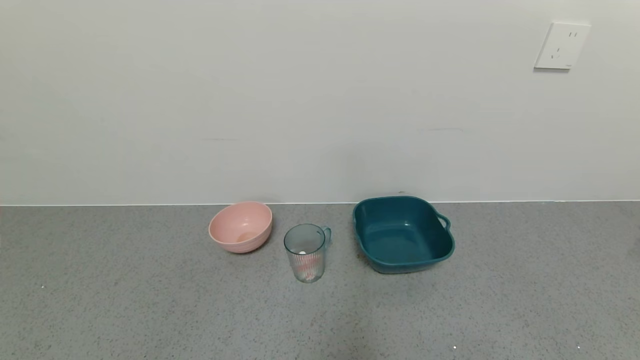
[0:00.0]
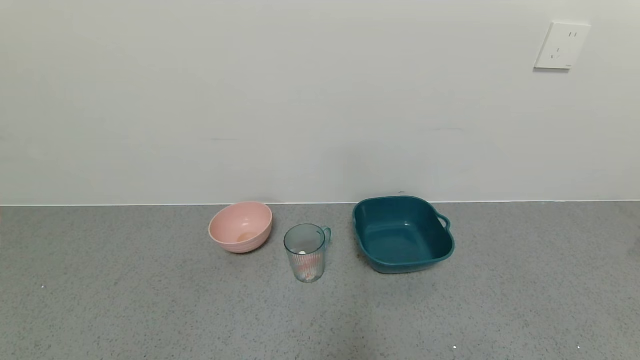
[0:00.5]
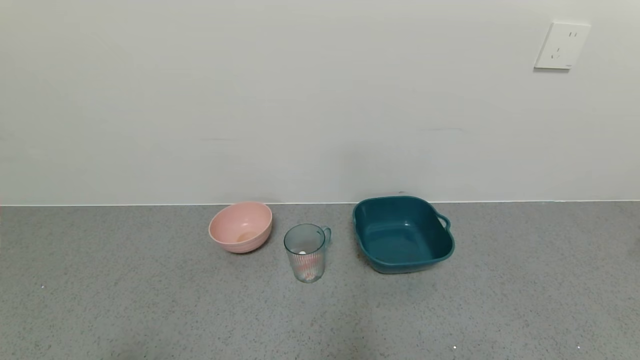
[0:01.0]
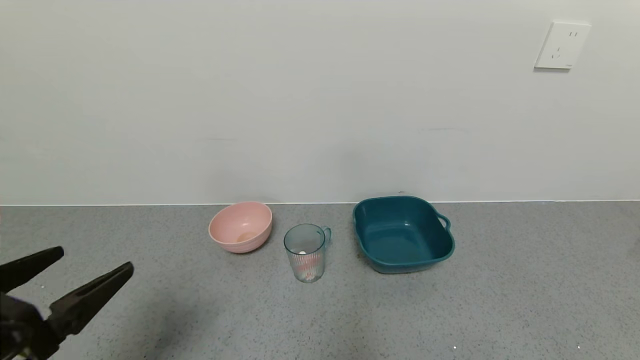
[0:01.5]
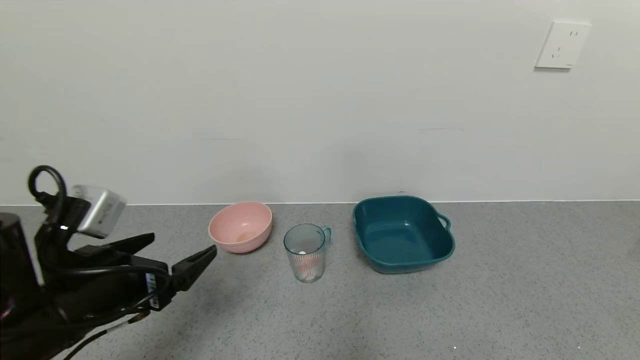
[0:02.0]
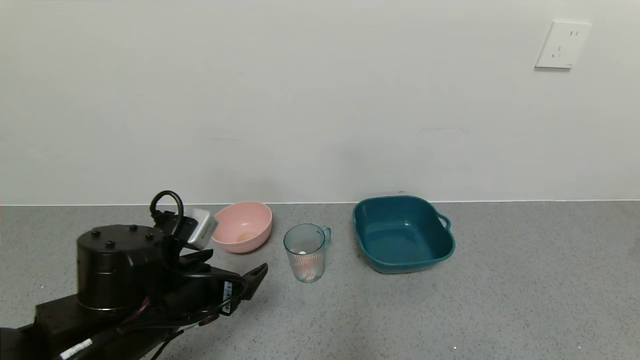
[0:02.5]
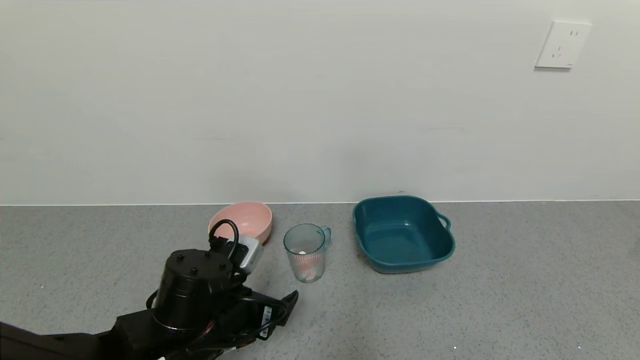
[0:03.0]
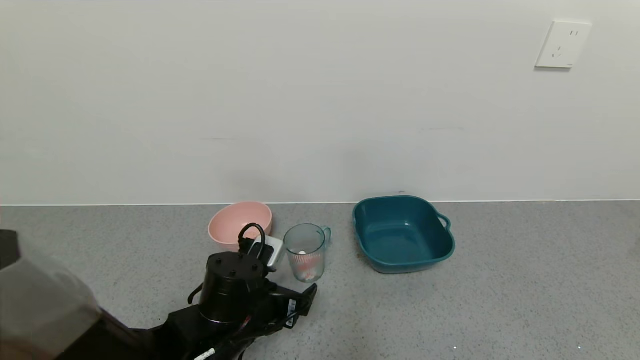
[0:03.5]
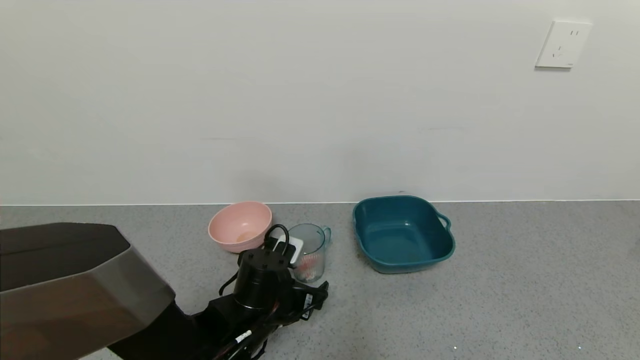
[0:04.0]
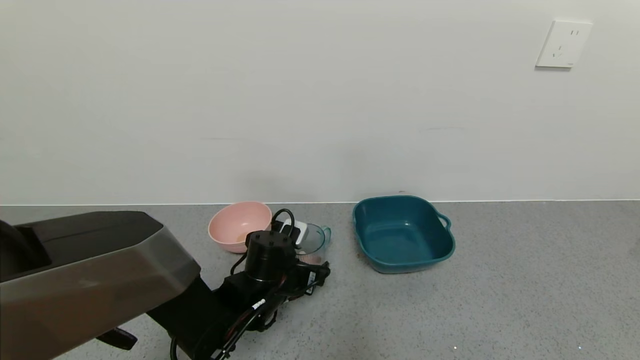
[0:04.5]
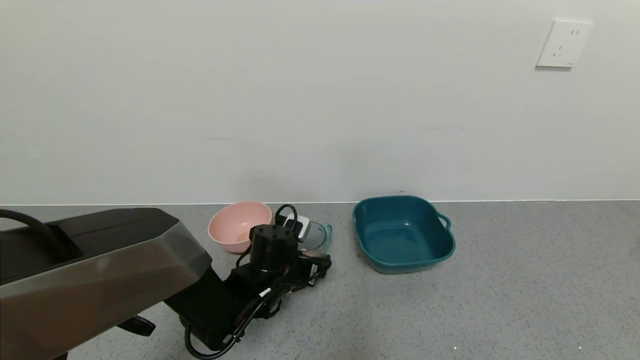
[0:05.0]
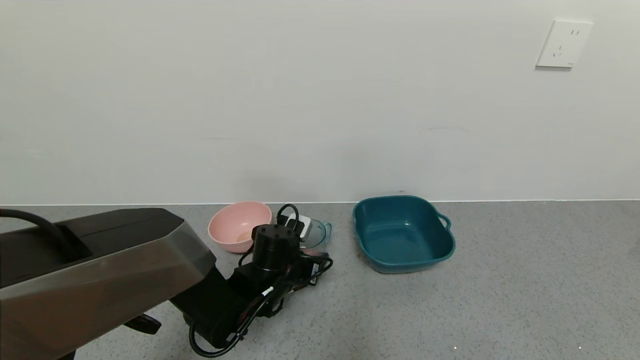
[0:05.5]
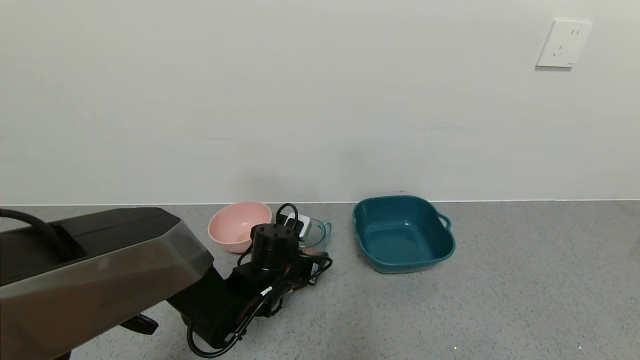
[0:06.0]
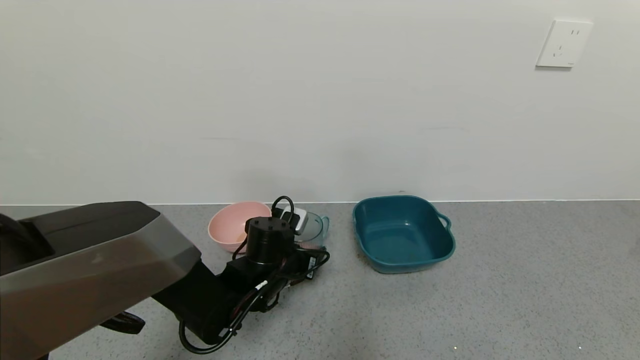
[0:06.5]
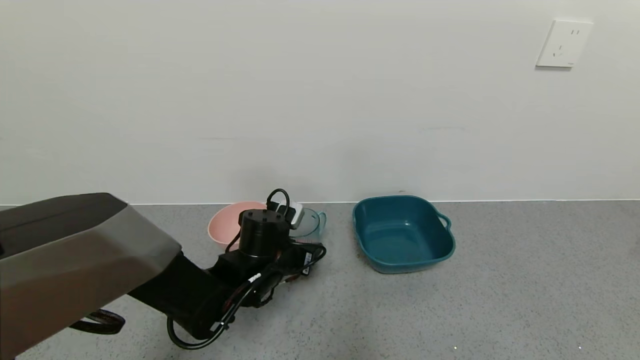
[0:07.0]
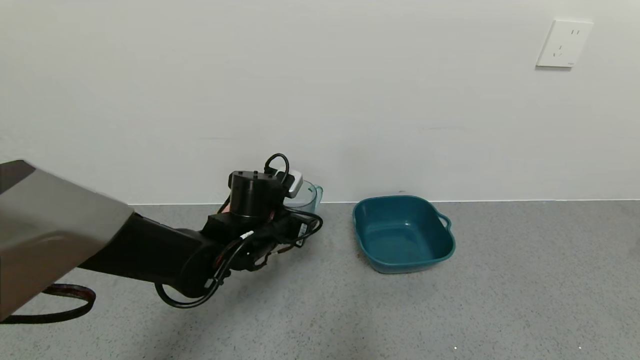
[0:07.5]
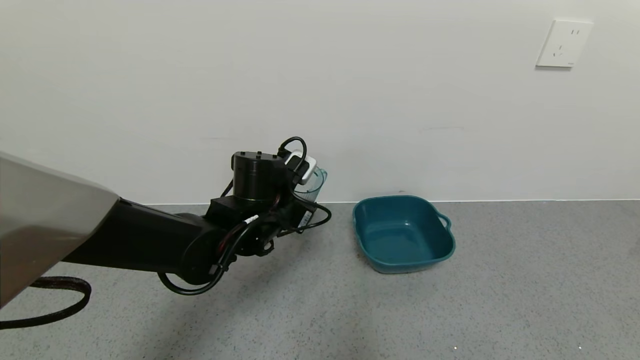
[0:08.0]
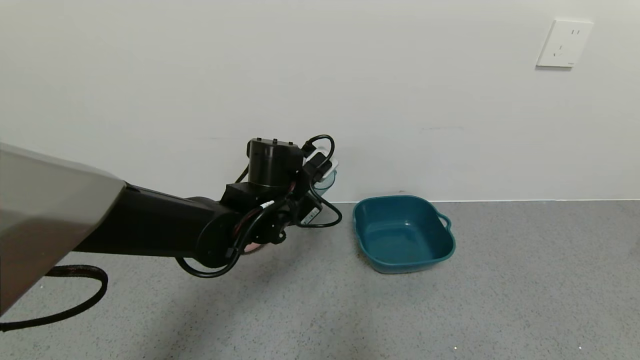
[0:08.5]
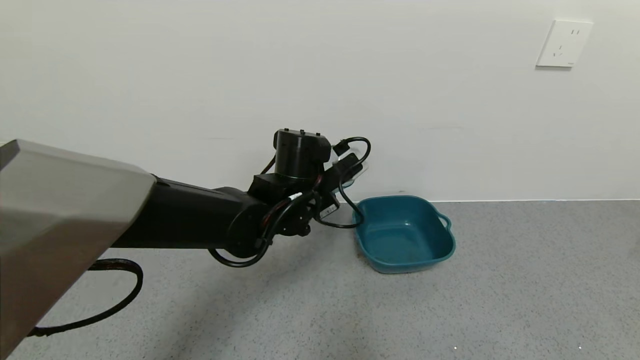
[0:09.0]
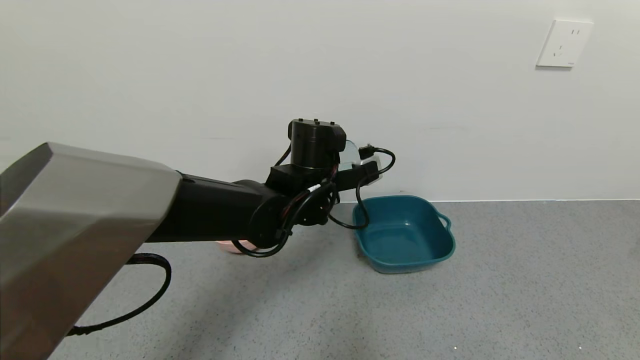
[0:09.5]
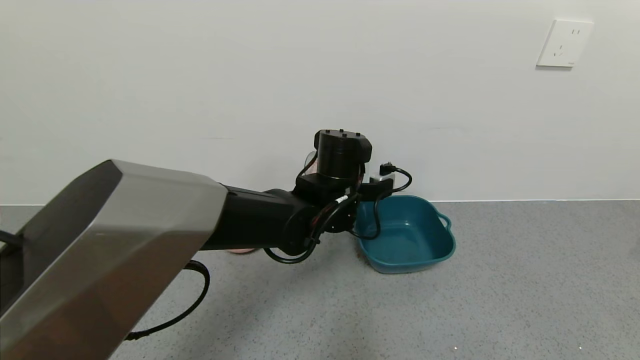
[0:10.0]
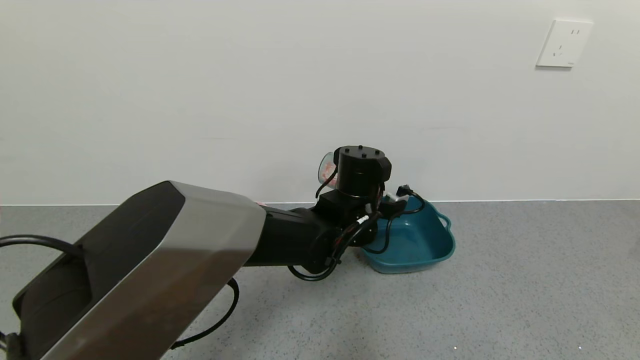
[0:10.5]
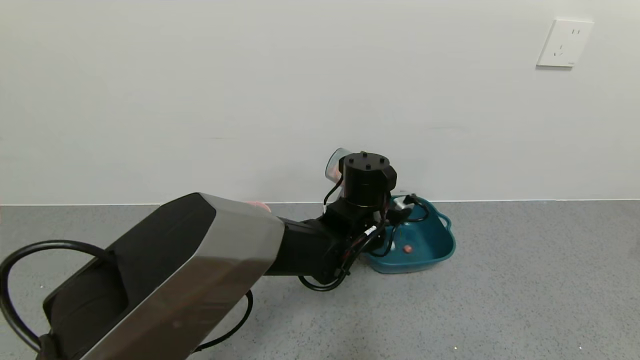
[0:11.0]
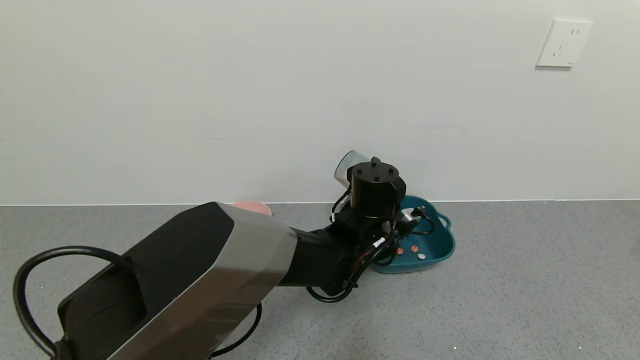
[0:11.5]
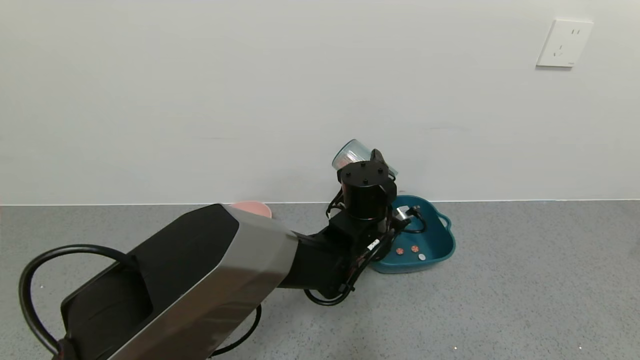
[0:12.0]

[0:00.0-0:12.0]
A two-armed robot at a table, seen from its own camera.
Task of the whole recording: use a gripper to pick up the cup and pour the solid into a bowl or tray.
Step, 0:00.0 to 0:05.5: Grasp the glass of shrimp with the left gripper.
0:00.0 to 0:02.0: The left gripper moves forward and upward, approximately 20 cm.
0:02.0 to 0:04.0: The left gripper goes some 20 cm to the right, downward and forward.
0:04.0 to 0:06.0: The left gripper heads forward, covering some 5 cm, and closes.
0:06.0 to 0:08.0: The left gripper goes about 10 cm upward.
0:08.0 to 0:10.0: The left gripper moves to the right, roughly 10 cm.
0:10.0 to 0:12.0: The left gripper moves roughly 5 cm.

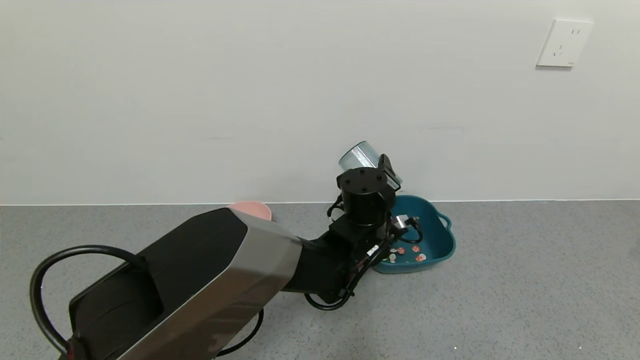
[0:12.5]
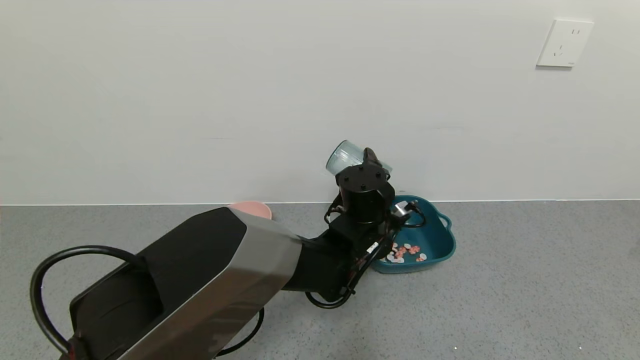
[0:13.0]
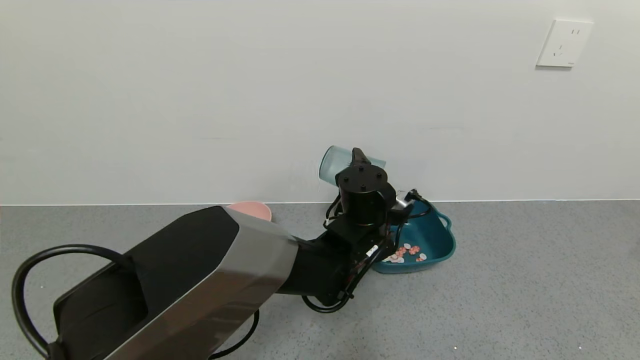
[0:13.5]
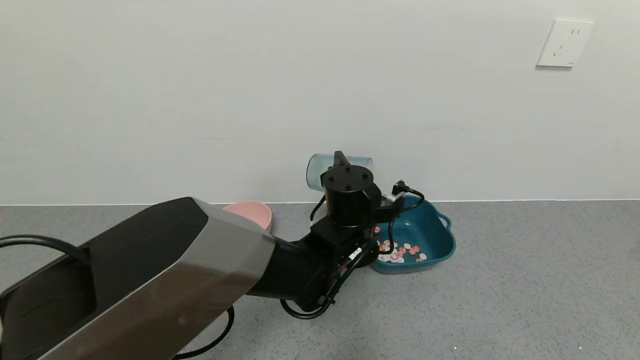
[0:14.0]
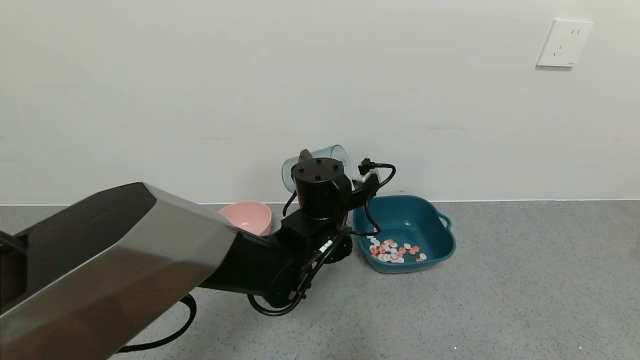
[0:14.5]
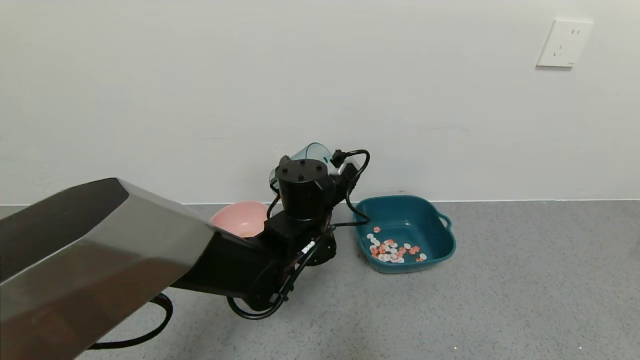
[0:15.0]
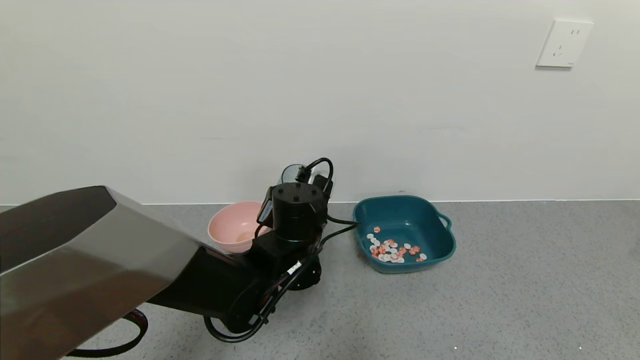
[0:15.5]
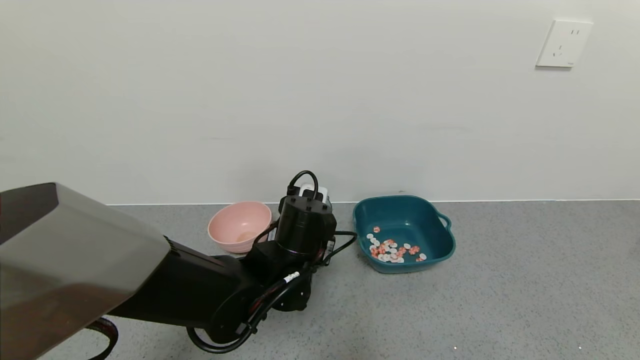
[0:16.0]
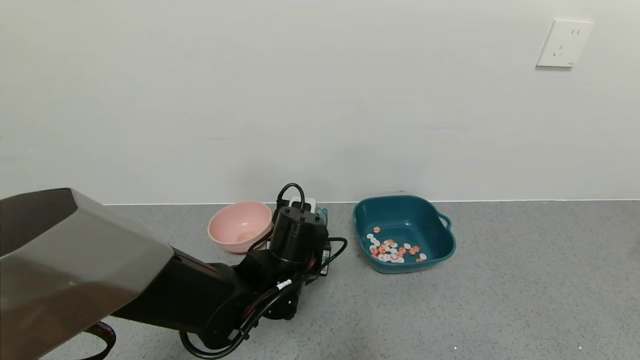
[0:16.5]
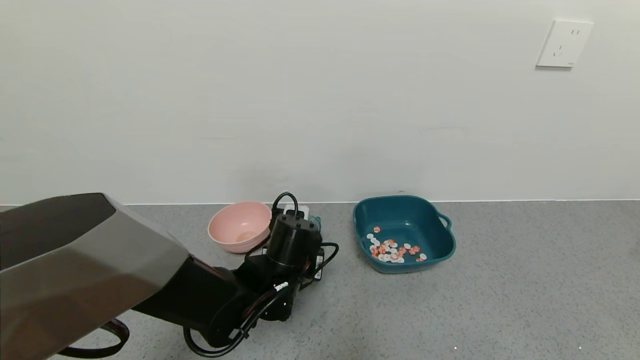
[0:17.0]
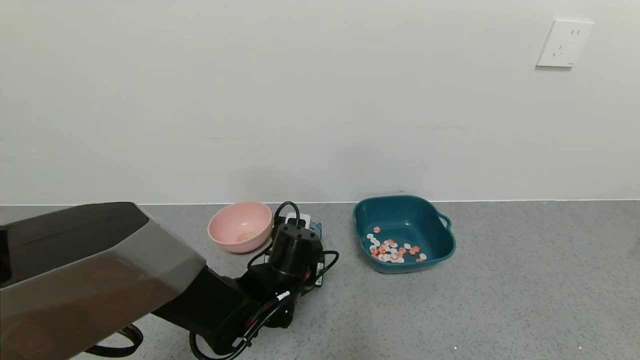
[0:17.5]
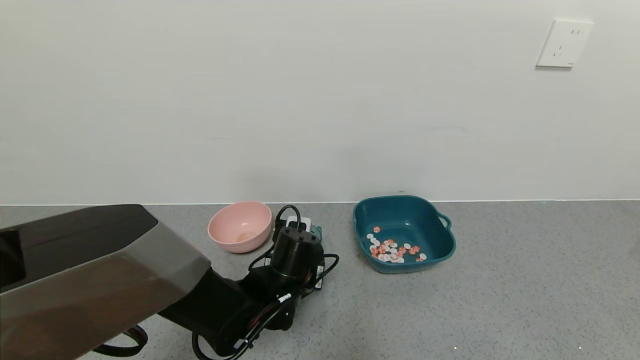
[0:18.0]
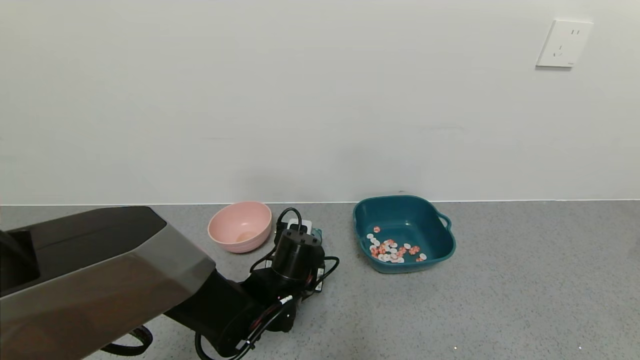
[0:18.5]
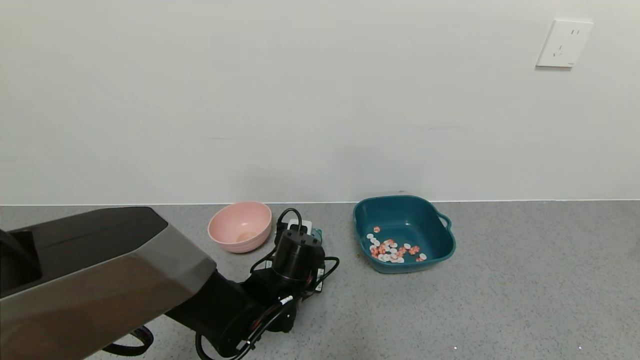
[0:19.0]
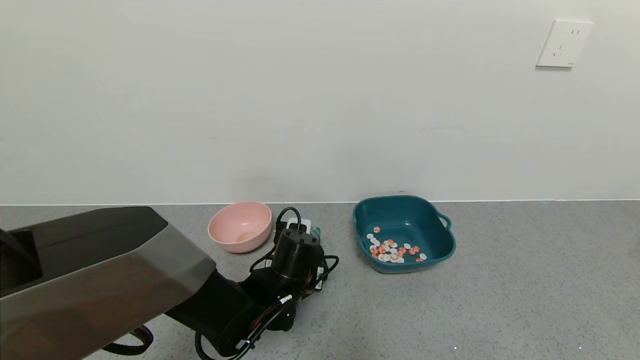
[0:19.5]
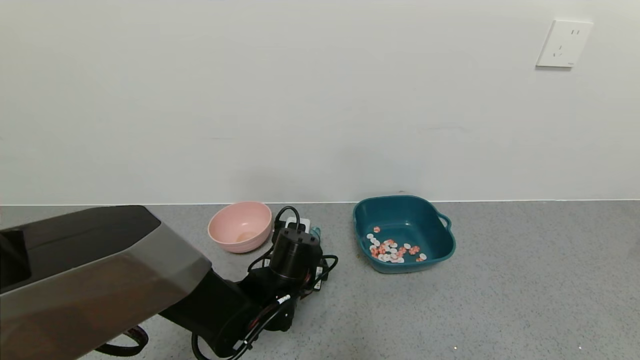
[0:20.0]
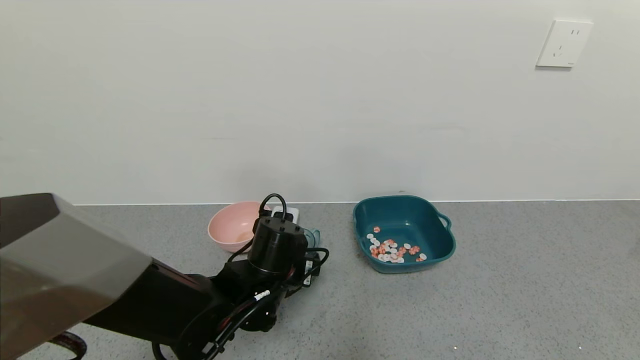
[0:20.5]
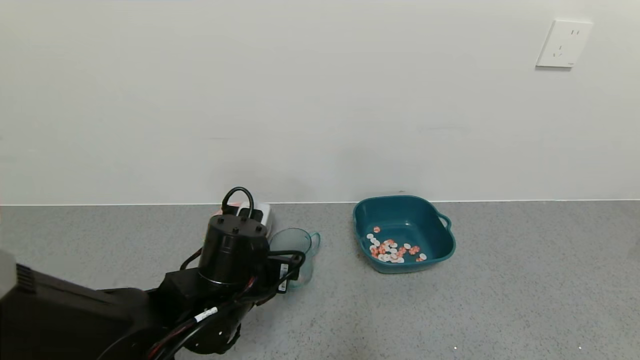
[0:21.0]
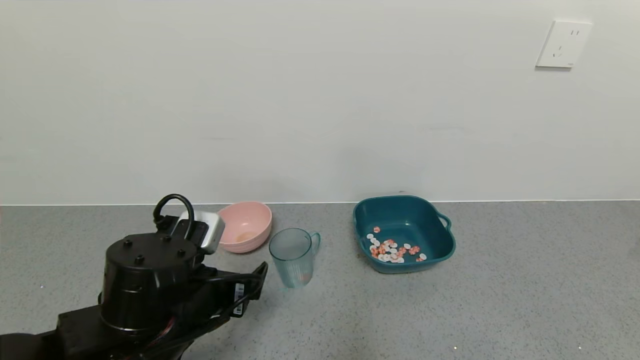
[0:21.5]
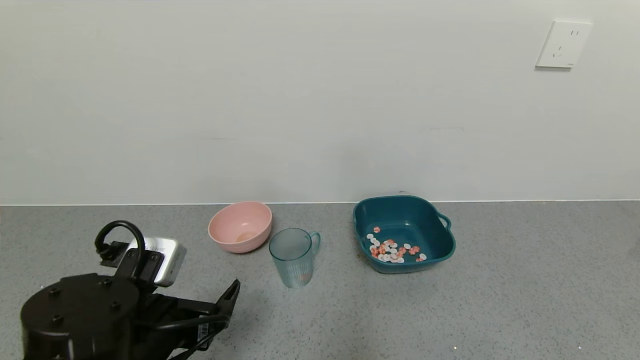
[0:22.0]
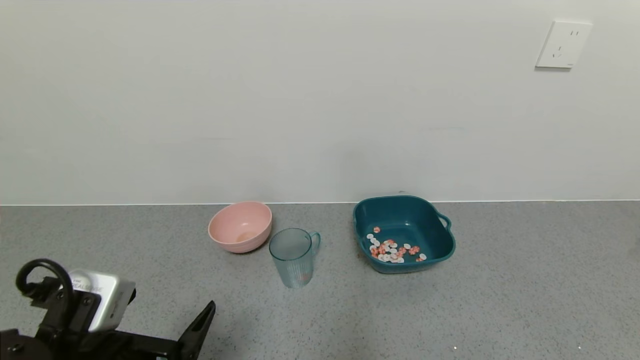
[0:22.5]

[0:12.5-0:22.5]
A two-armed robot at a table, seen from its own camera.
Task of the whole recording: use a gripper to pick up the cup and pour the solid into a bowl or tray.
Step, 0:14.0 to 0:20.5: Place the glass cup with the left gripper.
0:12.5 to 0:14.5: The left gripper travels to the left by about 5 cm.
0:14.5 to 0:16.5: The left gripper goes roughly 10 cm downward and to the left.
0:16.5 to 0:18.5: The left gripper ends up roughly 5 cm from where it was.
0:18.5 to 0:20.5: The left gripper opens.
0:20.5 to 0:22.5: The left gripper heads backward and to the left, covering roughly 20 cm.
